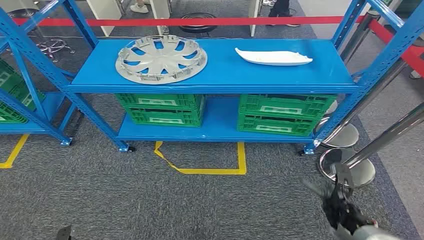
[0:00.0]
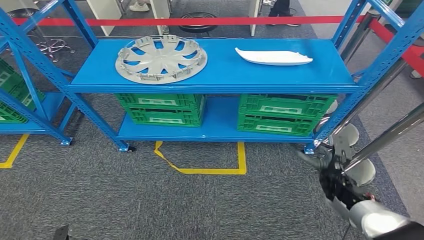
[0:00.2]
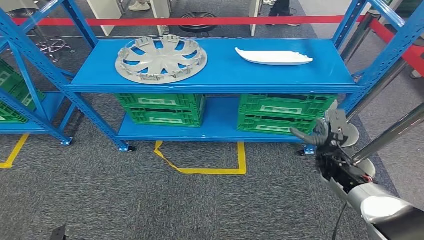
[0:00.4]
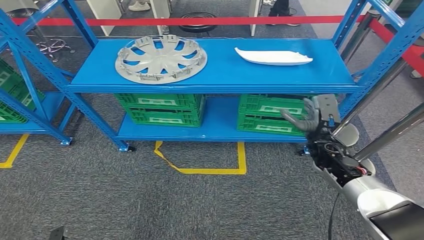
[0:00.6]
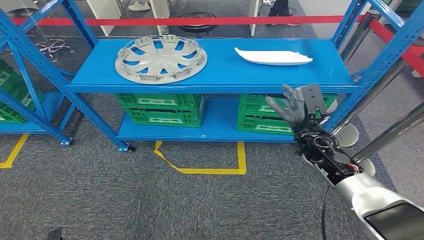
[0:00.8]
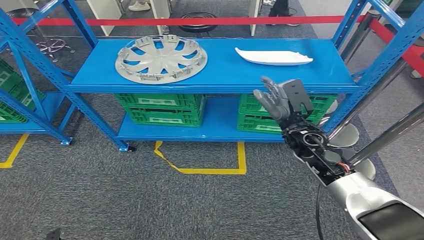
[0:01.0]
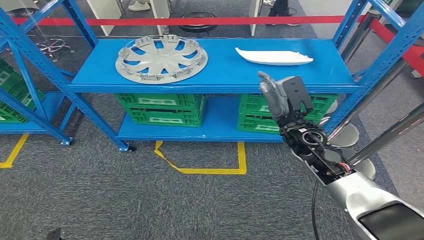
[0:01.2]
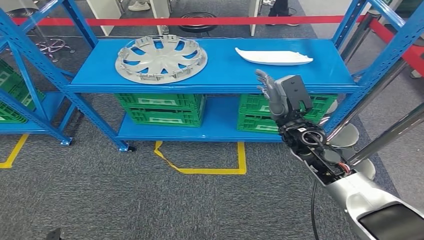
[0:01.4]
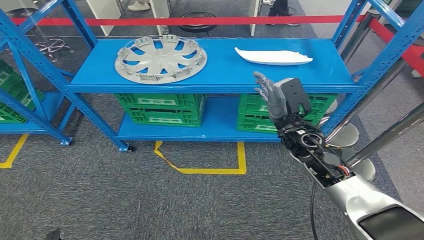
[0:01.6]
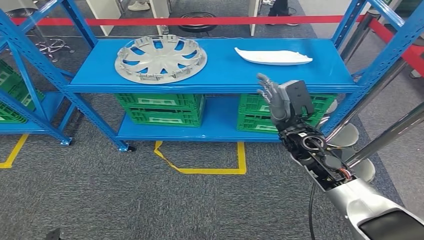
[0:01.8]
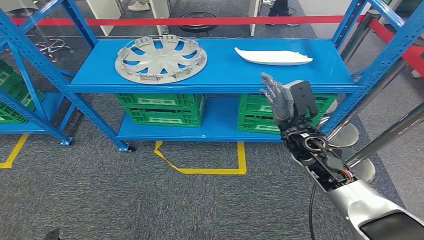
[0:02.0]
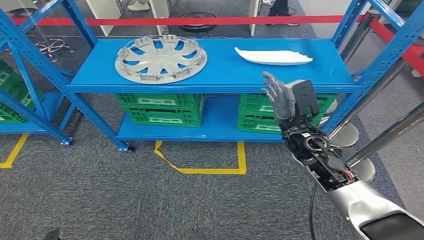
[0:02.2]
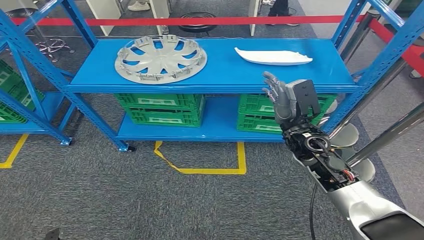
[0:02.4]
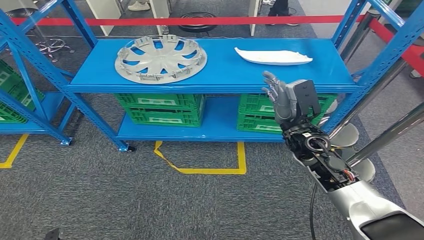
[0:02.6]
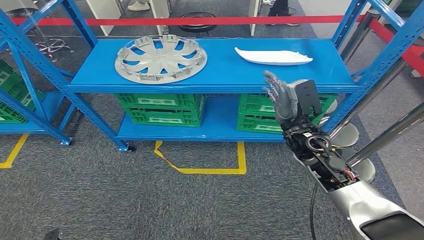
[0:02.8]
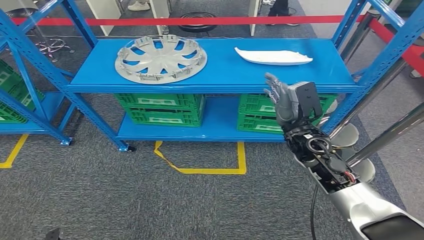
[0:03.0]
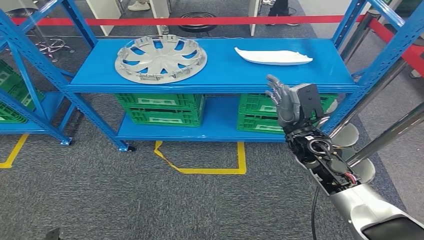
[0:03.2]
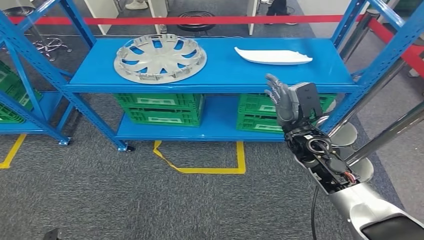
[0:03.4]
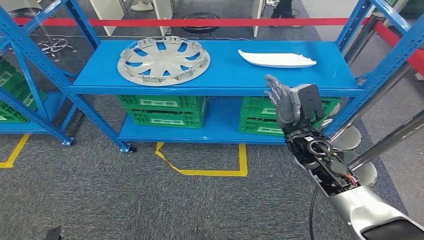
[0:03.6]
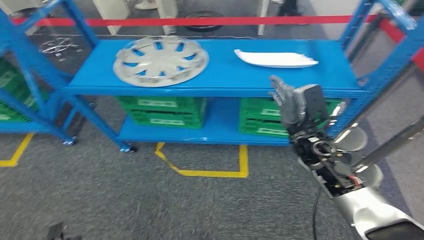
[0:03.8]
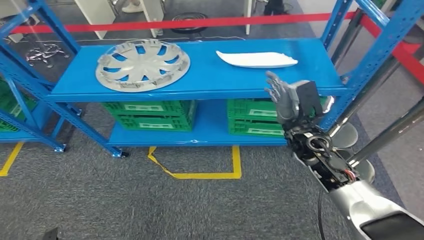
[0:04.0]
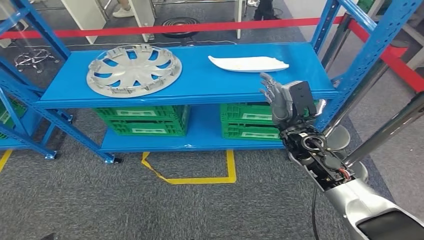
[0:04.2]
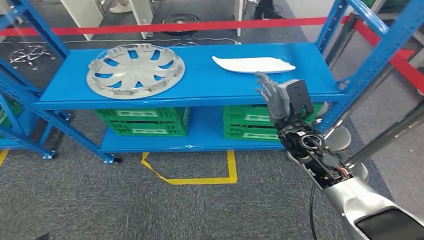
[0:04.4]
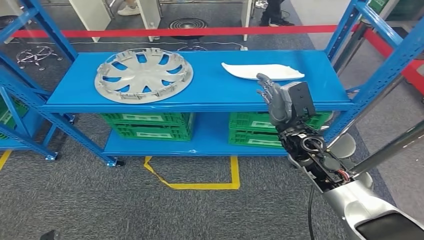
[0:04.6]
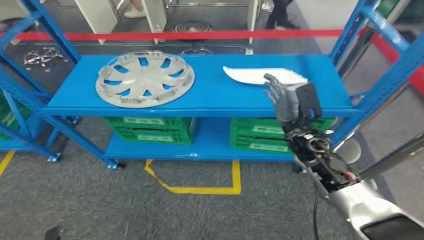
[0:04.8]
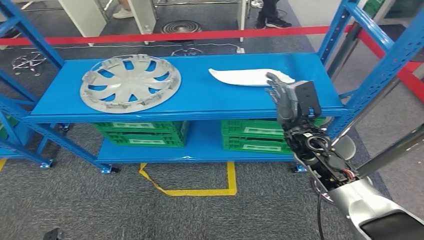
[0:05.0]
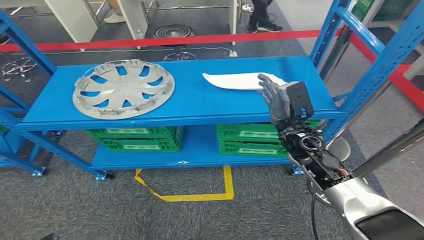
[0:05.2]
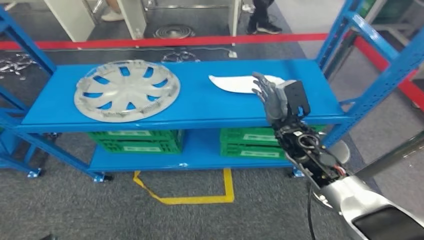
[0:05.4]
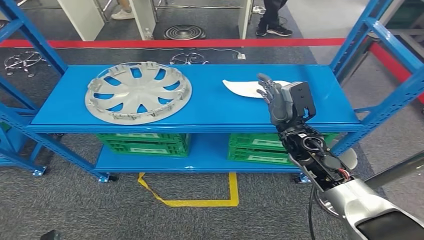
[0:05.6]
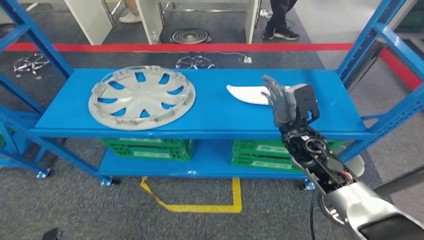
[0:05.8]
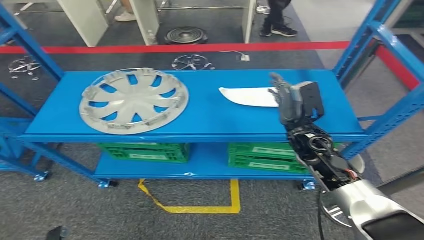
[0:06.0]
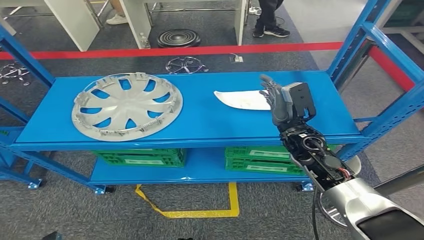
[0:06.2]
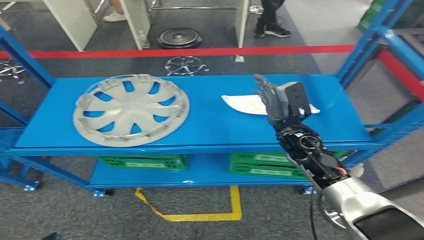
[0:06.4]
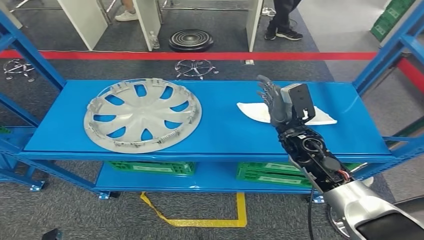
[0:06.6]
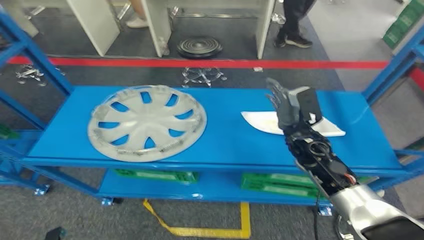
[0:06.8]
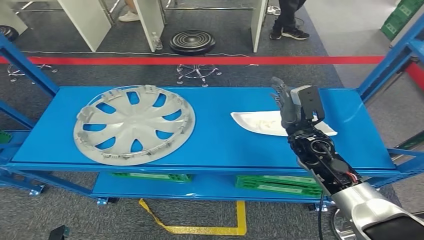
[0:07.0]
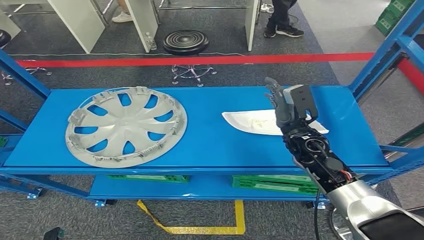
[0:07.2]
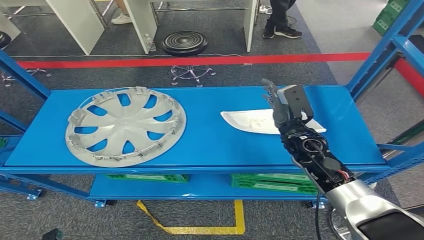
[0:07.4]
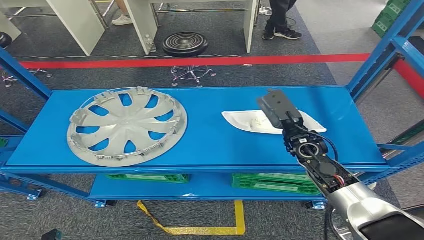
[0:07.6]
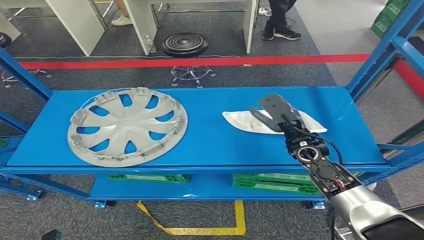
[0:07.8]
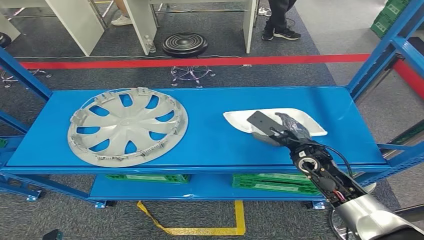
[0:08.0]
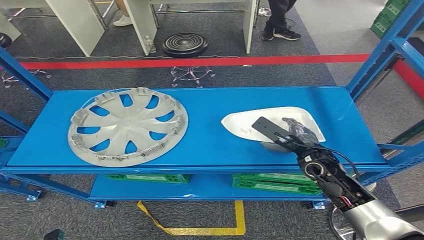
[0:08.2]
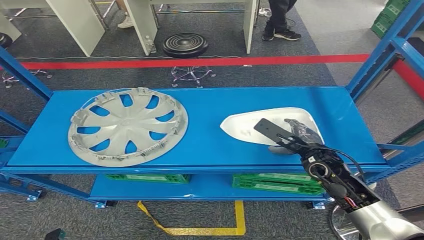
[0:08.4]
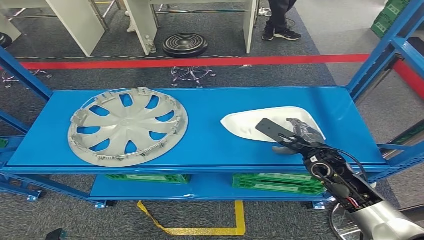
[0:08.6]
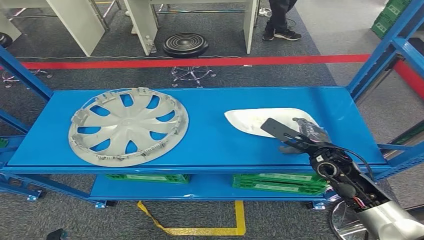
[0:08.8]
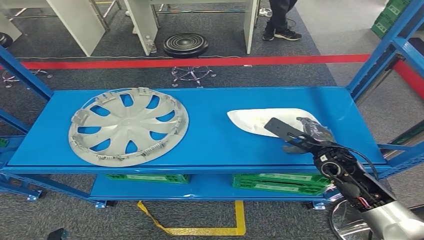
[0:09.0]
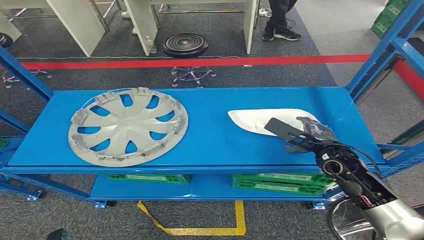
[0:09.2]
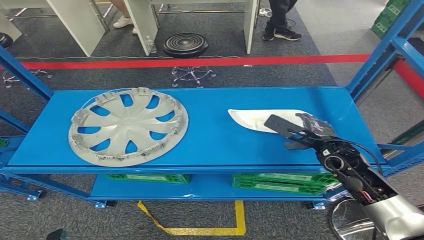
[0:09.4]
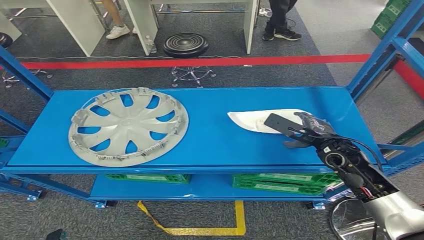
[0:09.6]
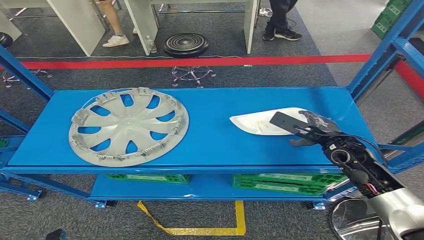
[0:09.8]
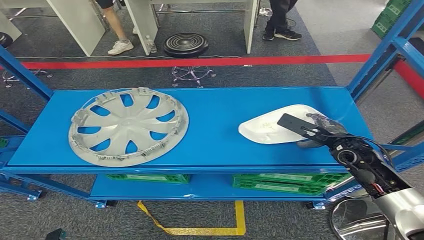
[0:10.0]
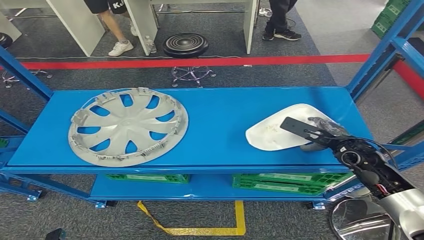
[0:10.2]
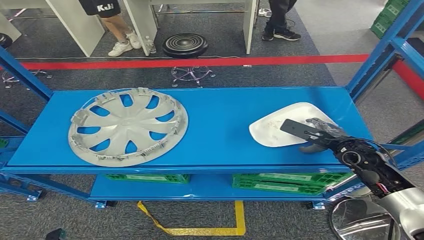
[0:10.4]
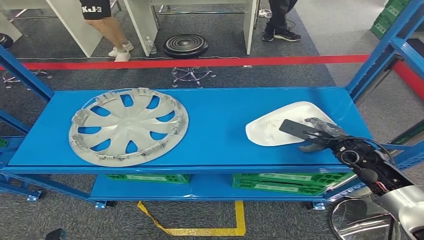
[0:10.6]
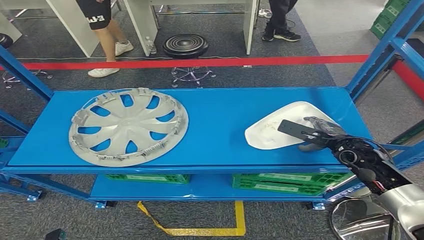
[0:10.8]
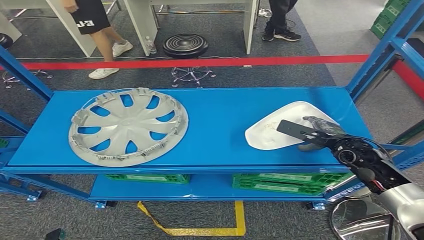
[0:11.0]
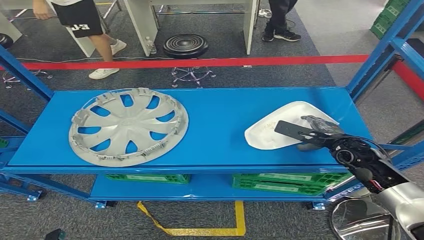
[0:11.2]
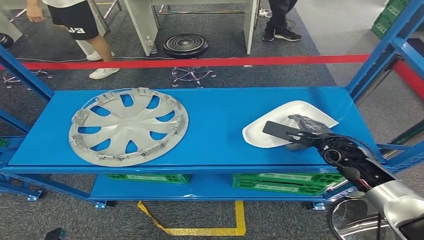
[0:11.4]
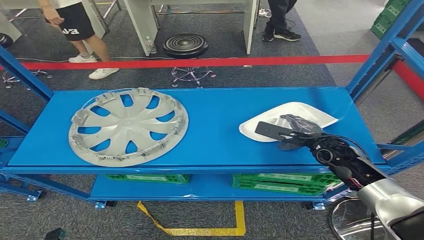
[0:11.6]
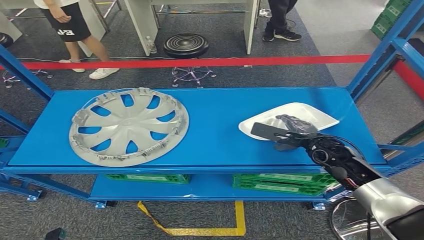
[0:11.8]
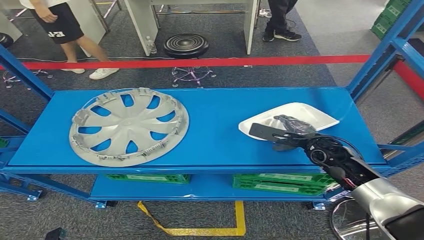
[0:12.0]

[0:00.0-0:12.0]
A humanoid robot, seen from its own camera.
0:01.6 to 0:03.0: The hands make only small movements.
0:07.6 to 0:09.0: The right hand shifts roughly 5 cm to the right.
0:09.0 to 0:10.4: The right hand goes about 5 cm to the right.
0:10.4 to 0:12.0: The right hand goes some 5 cm to the left.

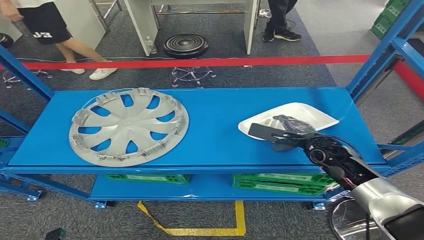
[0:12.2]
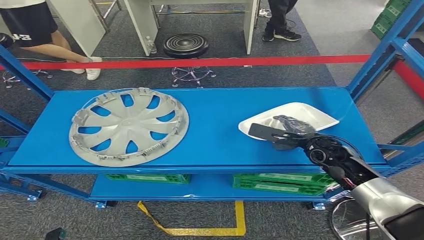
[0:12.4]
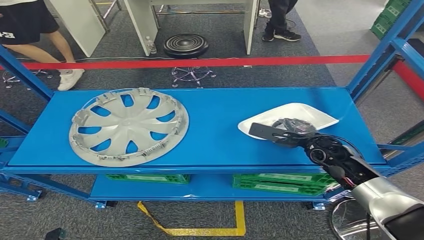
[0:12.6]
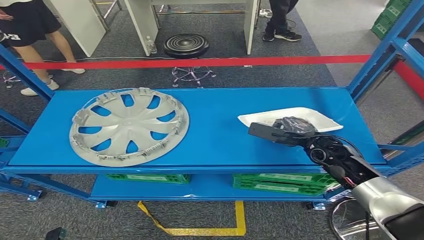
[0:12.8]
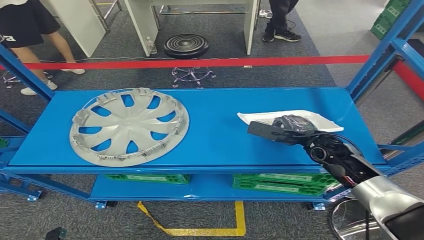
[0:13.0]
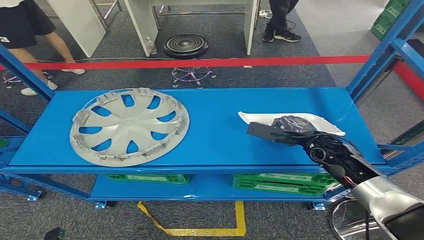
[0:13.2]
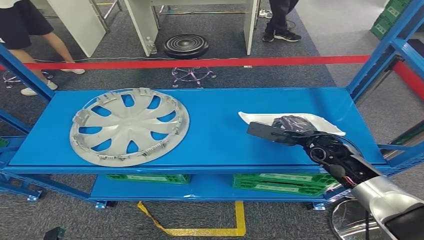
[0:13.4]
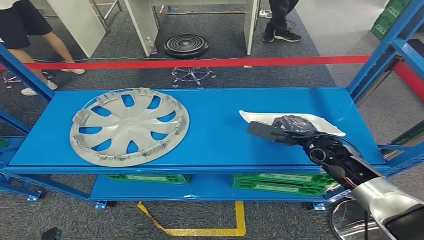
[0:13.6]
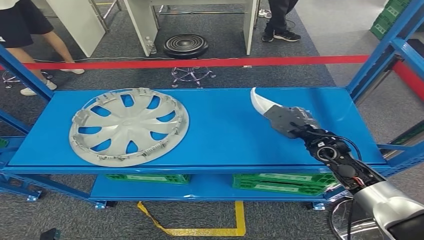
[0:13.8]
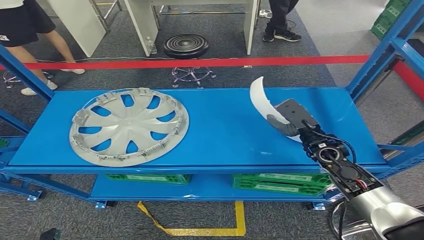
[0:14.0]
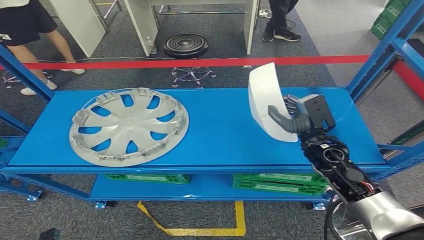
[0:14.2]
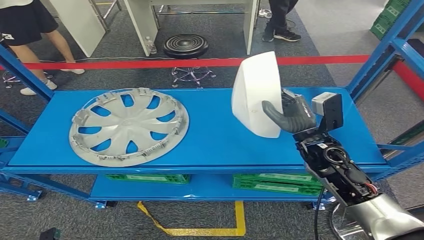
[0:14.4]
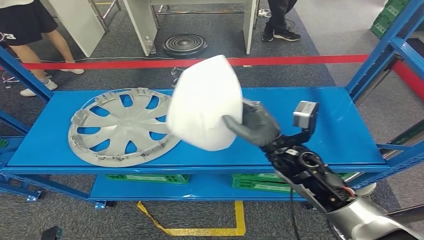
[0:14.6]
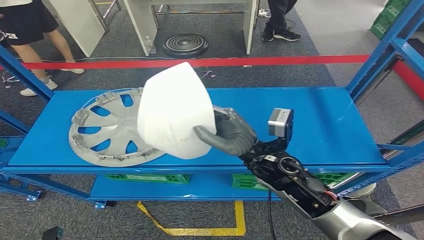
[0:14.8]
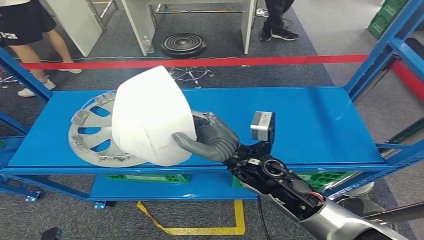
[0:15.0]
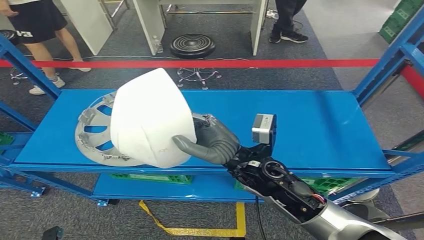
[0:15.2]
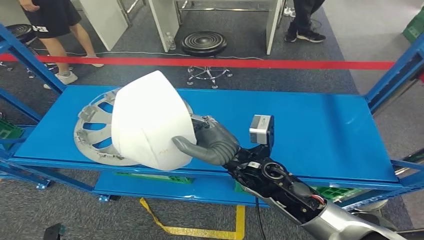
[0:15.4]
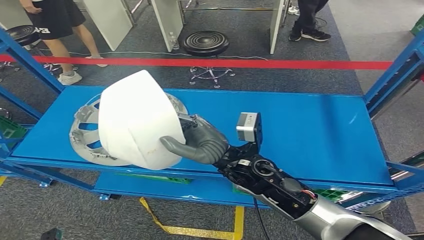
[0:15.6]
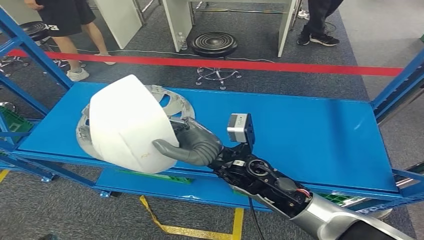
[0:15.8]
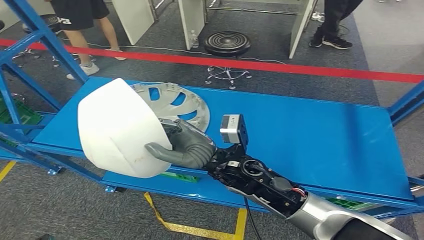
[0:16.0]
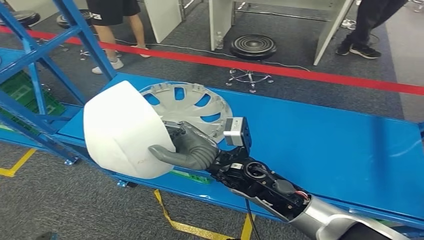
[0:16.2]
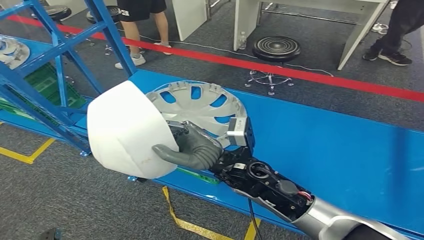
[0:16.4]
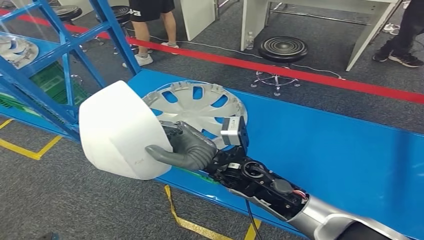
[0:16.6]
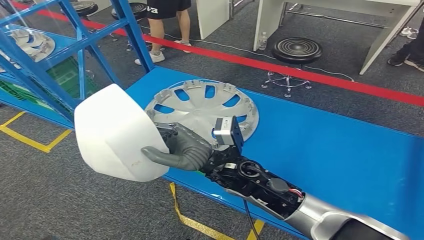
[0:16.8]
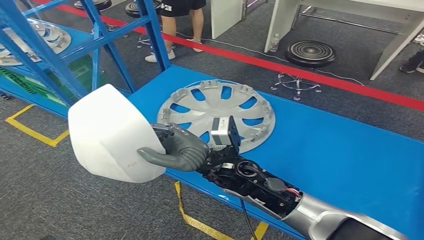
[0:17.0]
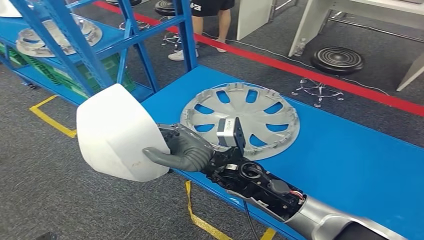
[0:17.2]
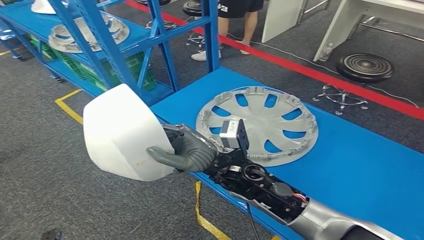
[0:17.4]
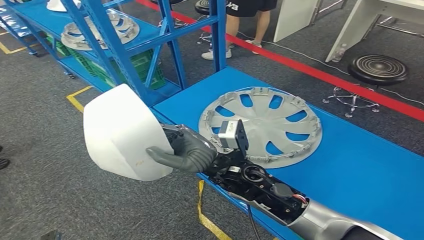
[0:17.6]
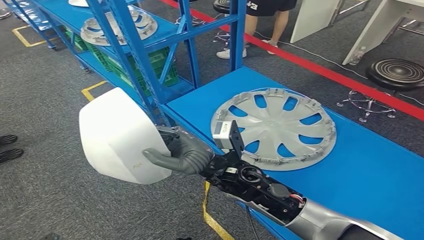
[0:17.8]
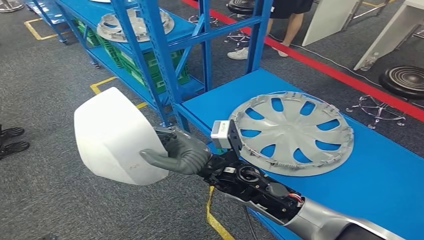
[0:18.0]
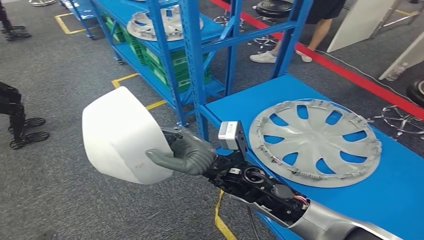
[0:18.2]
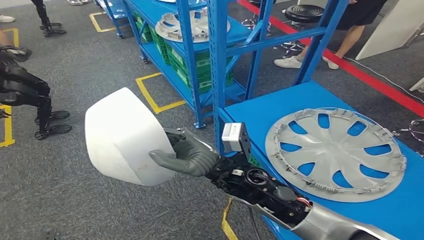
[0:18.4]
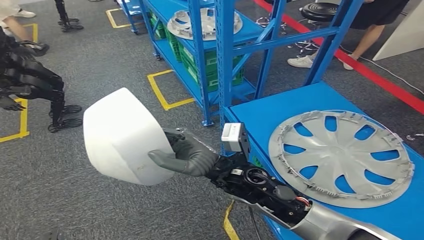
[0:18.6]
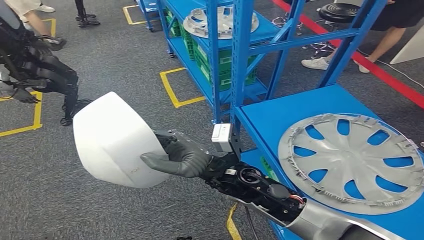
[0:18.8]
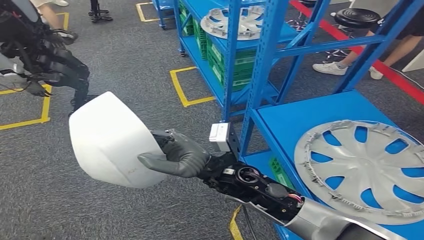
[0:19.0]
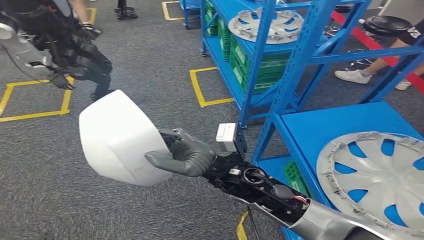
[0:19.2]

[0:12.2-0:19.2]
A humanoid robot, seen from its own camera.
Step, 0:12.2 to 0:15.8: Pick up the small component from the shelf.
0:12.2 to 0:13.6: Both hands stay about where they are.
